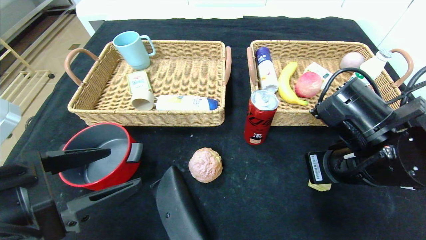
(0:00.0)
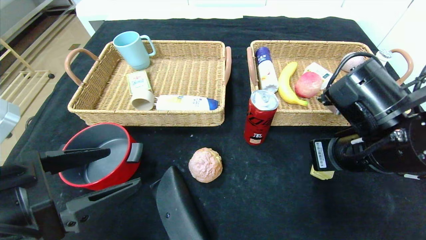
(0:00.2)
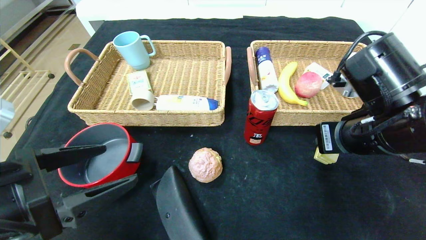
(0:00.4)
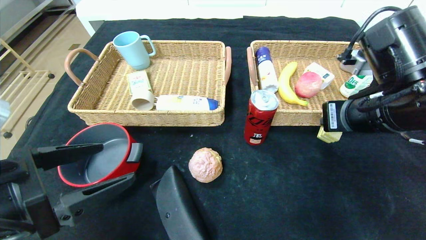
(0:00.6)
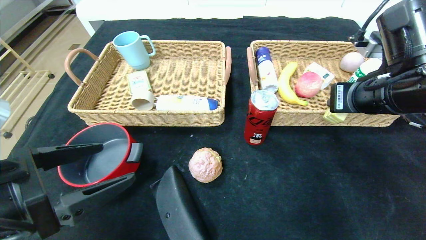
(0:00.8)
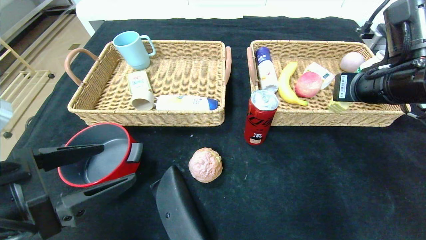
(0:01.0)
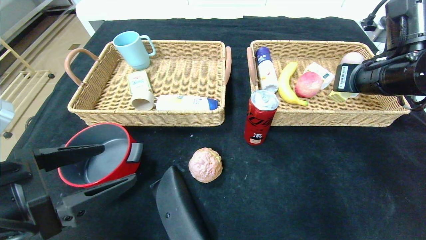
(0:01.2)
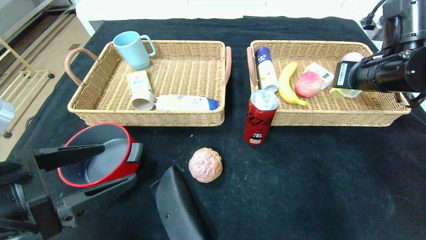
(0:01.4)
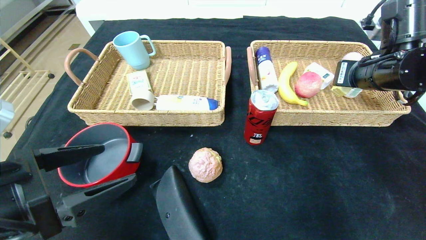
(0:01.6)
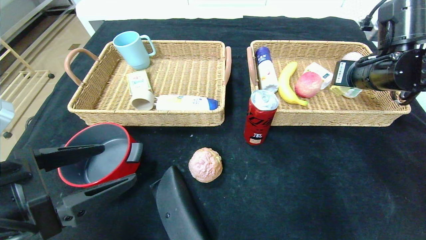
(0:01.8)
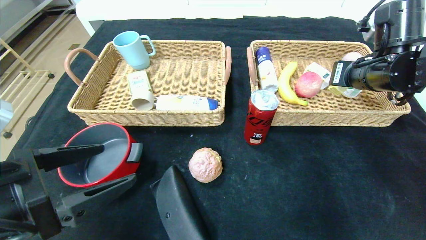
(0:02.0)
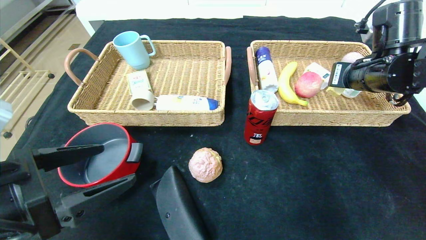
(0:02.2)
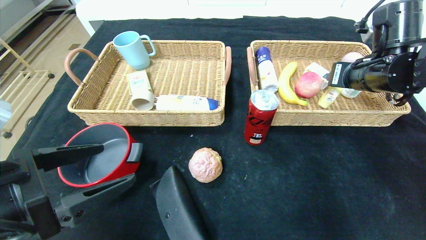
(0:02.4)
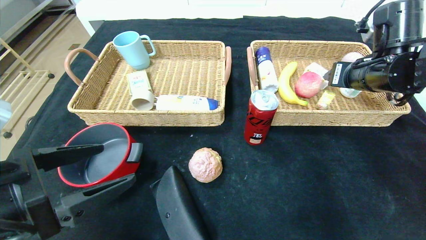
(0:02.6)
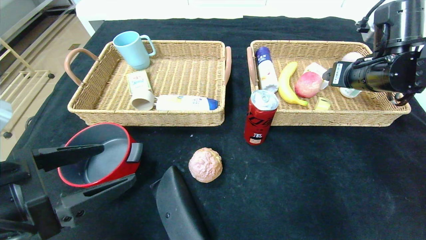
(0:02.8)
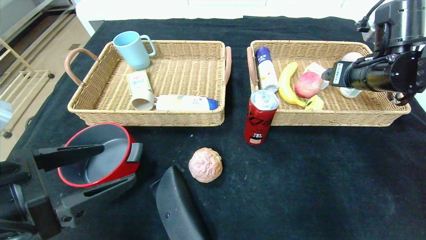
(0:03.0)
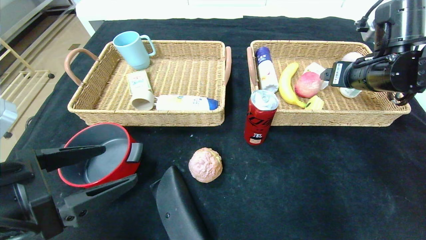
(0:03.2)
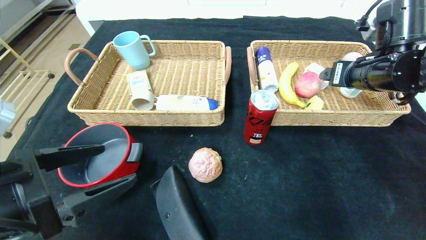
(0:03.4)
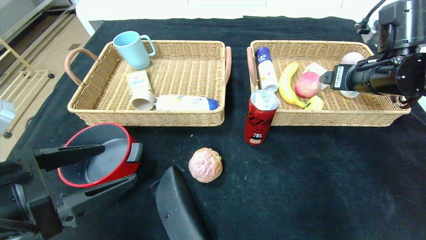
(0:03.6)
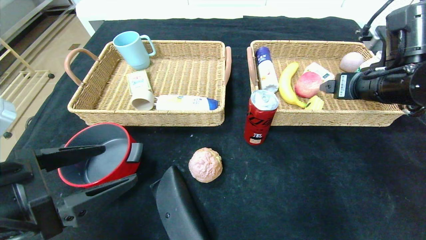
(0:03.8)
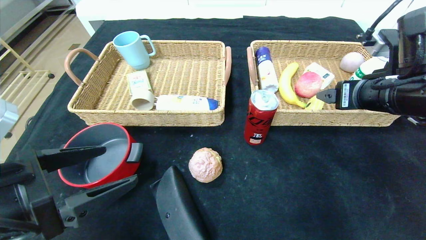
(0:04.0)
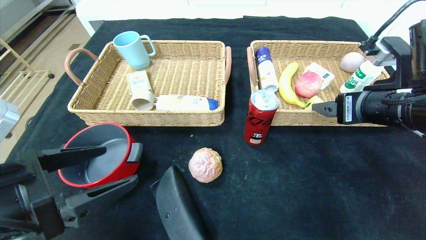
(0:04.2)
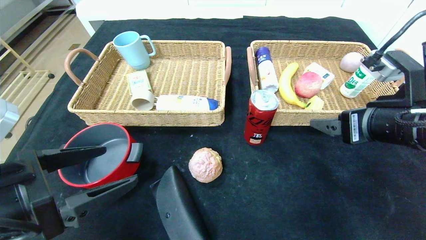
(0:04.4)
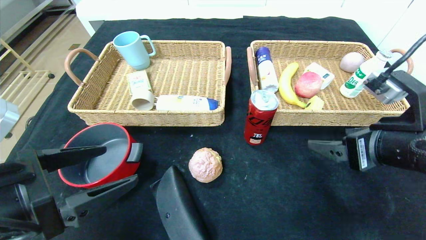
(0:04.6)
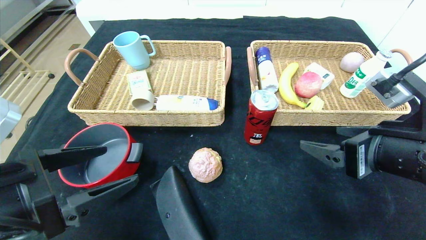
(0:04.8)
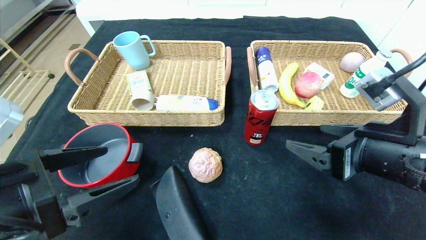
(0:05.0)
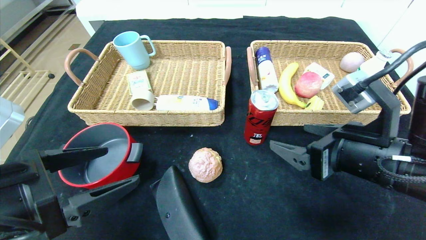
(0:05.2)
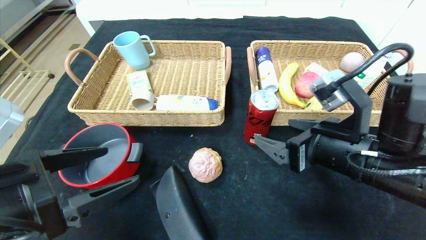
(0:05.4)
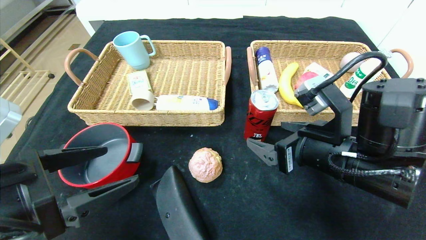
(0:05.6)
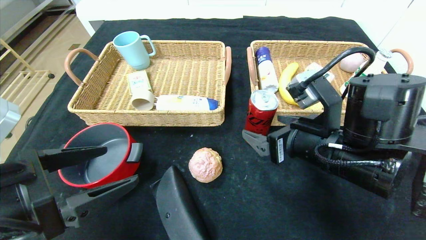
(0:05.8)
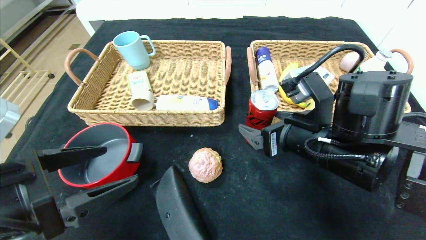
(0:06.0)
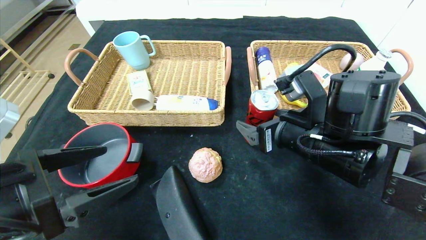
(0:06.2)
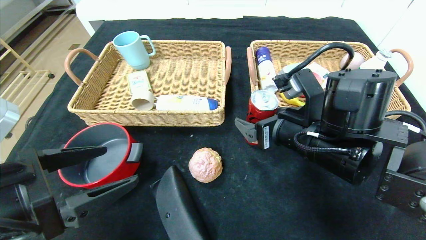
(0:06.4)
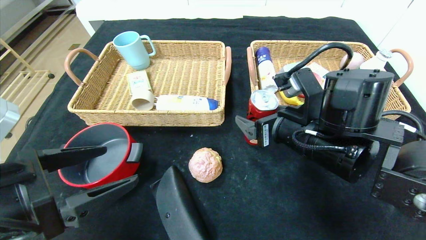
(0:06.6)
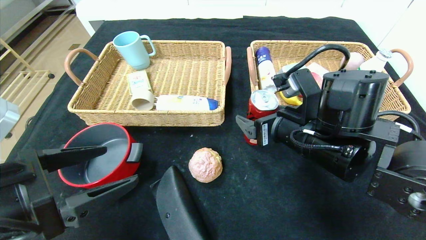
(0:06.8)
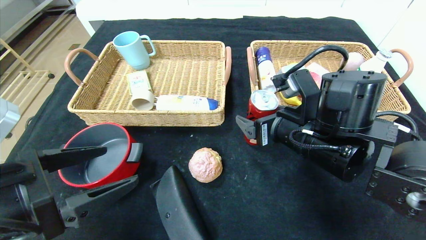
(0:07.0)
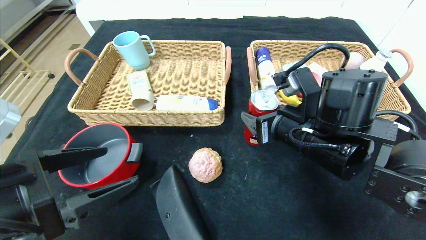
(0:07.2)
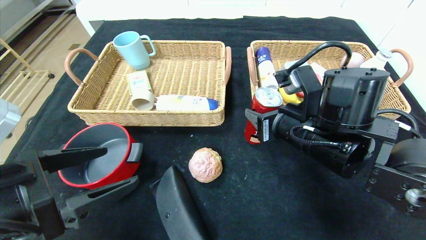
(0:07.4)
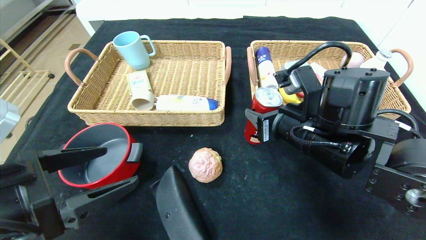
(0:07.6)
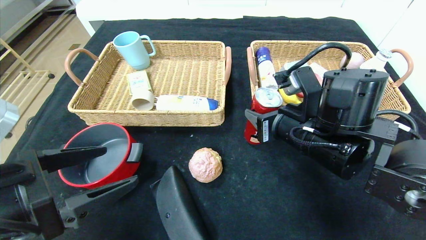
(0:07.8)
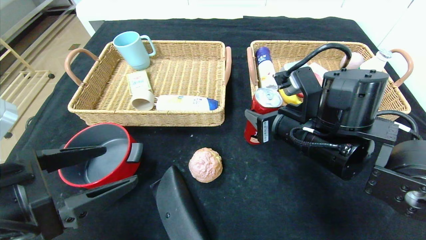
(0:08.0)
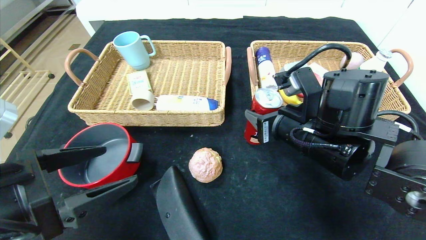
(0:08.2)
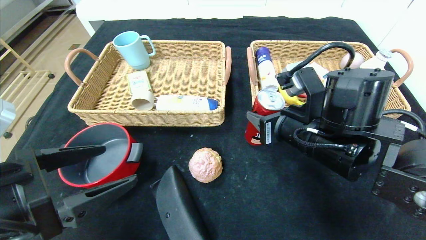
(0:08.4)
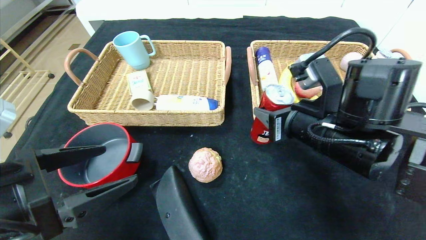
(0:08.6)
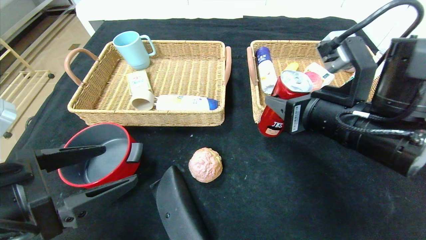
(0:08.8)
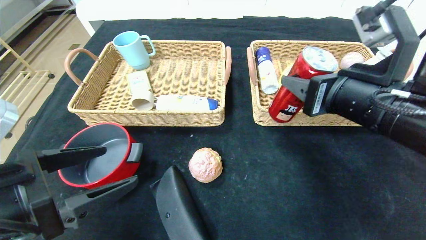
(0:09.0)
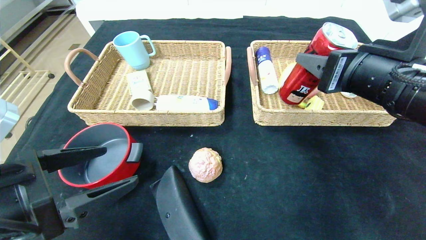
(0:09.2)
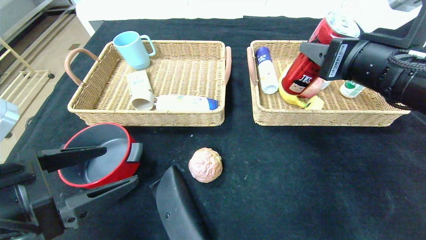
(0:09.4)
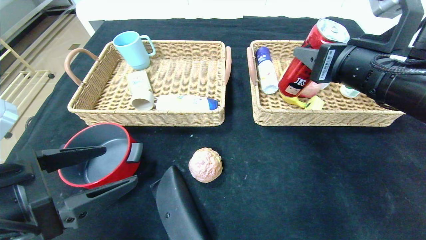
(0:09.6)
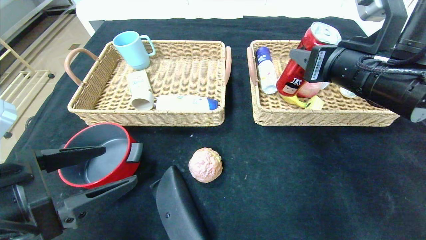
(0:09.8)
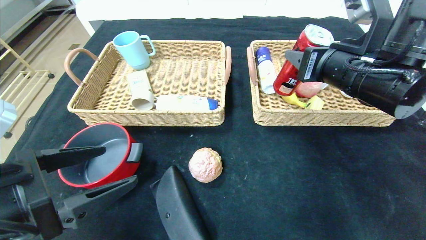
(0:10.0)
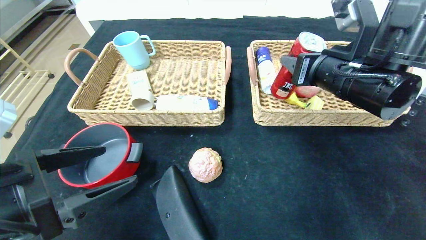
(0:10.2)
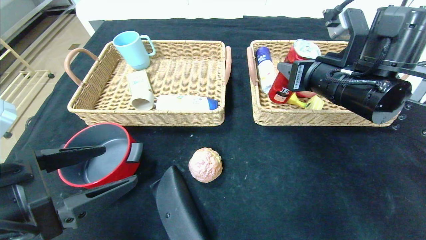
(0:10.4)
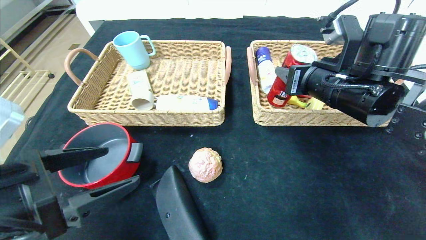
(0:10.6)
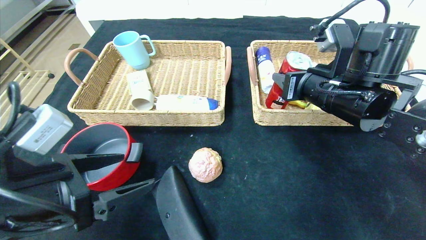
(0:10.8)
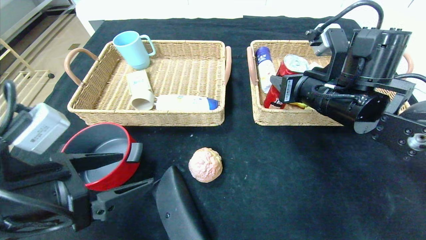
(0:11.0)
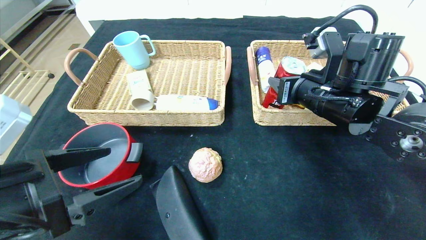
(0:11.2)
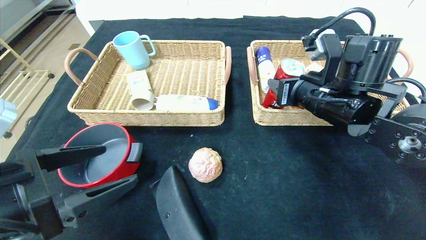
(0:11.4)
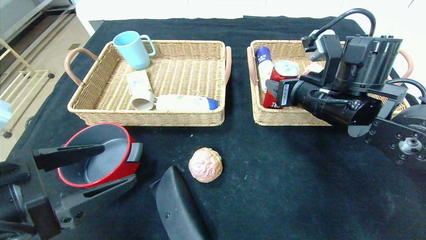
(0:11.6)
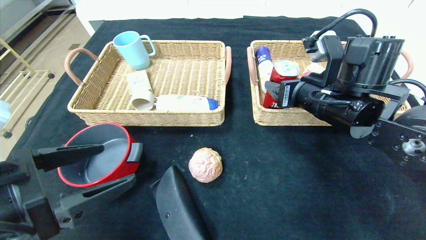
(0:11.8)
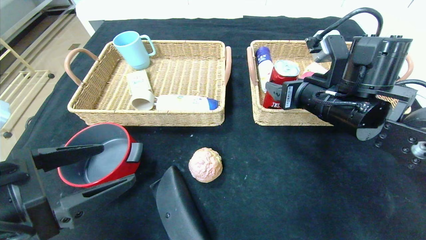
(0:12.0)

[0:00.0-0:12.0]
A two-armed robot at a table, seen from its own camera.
Step, 0:00.0 to 0:03.2: Grasp the yellow cake and put it in the right basket.
0:00.0 to 0:01.6: The right gripper is displaced forward, to the right and upward by about 15 cm.
0:01.6 to 0:03.0: The right gripper opens.
0:03.0 to 0:04.4: The right gripper moves backward, roughly 10 cm.
0:04.4 to 0:06.0: The right gripper goes roughly 10 cm to the left.
0:06.0 to 0:07.6: The right gripper closes.
0:07.6 to 0:09.0: The right gripper shifts some 10 cm upward and to the right.
0:09.0 to 0:10.4: The right gripper goes about 10 cm forward.
0:10.4 to 0:12.0: The right gripper opens up.

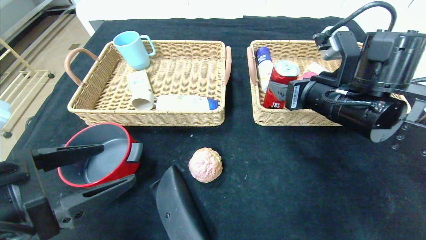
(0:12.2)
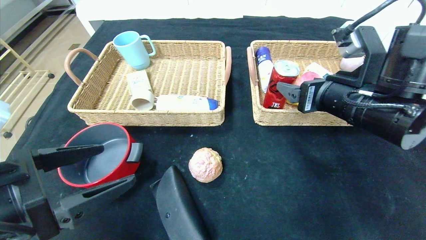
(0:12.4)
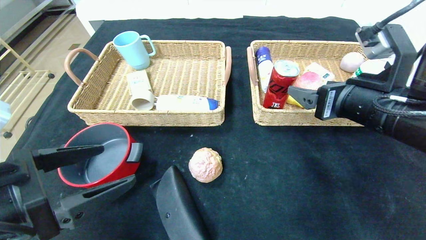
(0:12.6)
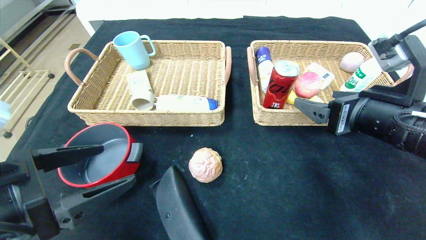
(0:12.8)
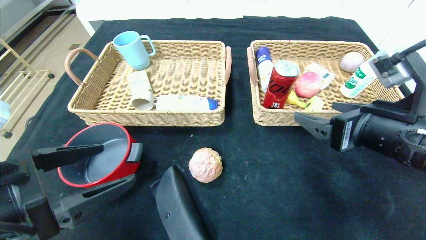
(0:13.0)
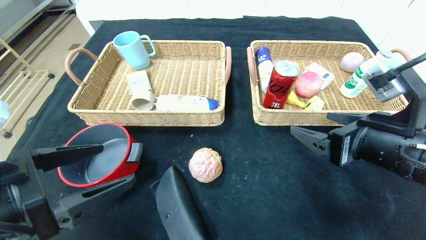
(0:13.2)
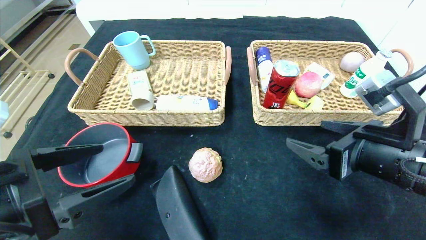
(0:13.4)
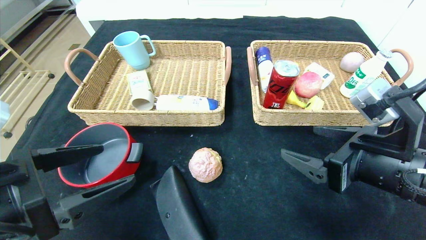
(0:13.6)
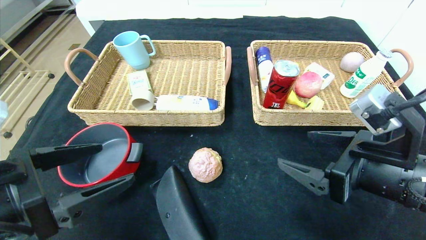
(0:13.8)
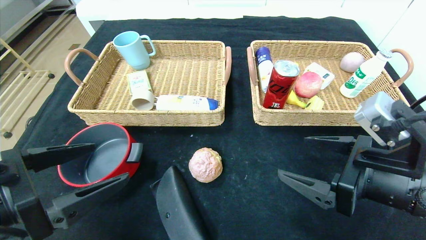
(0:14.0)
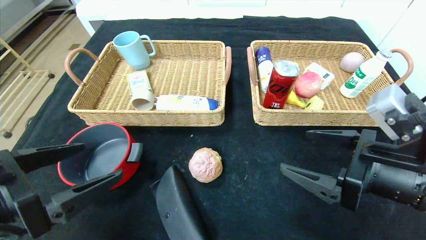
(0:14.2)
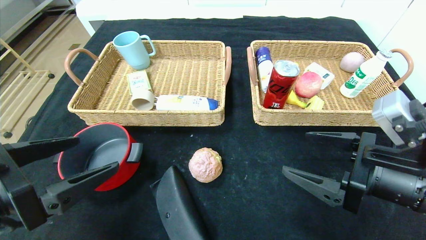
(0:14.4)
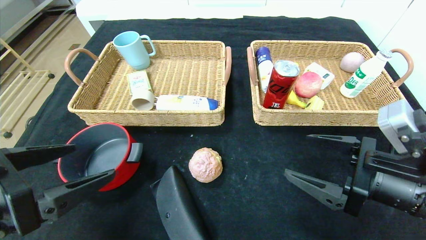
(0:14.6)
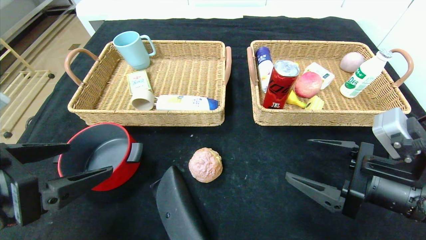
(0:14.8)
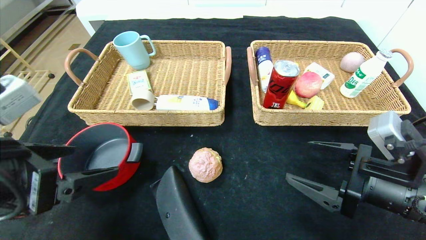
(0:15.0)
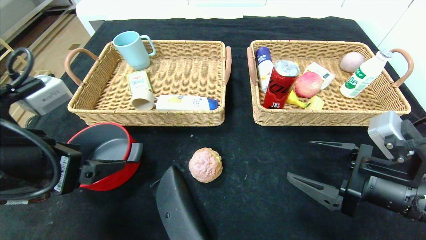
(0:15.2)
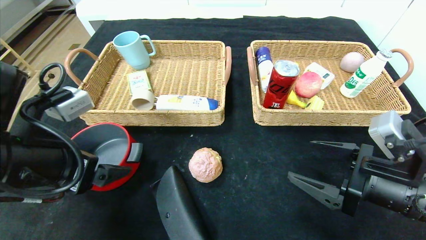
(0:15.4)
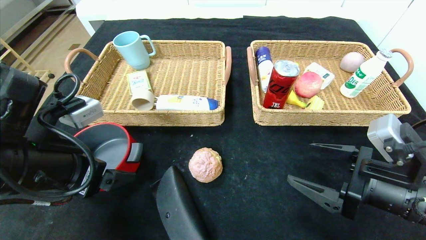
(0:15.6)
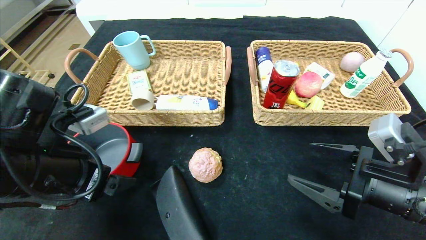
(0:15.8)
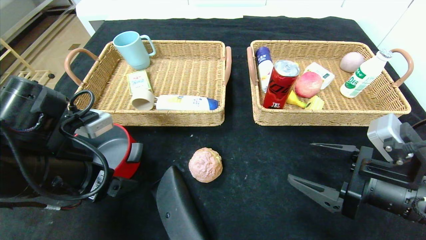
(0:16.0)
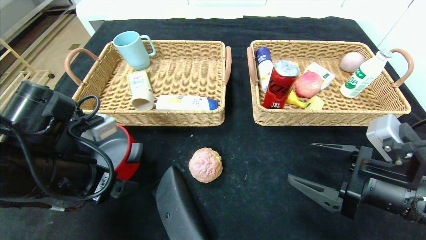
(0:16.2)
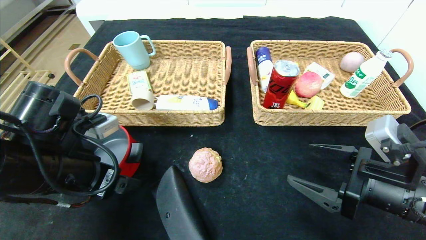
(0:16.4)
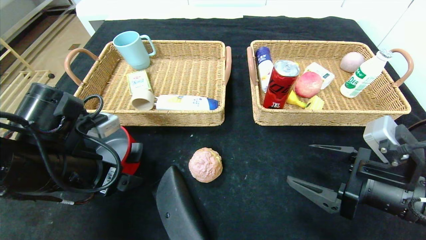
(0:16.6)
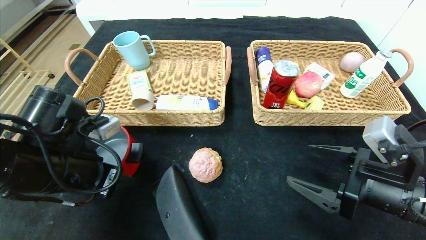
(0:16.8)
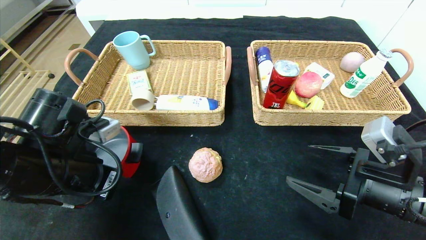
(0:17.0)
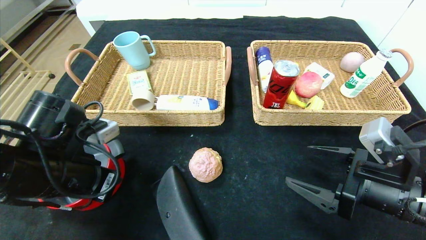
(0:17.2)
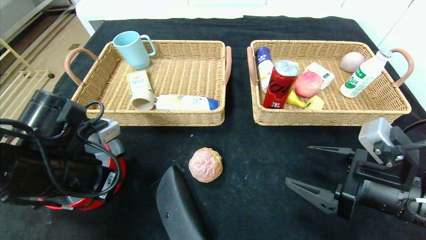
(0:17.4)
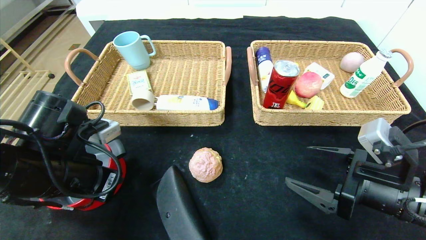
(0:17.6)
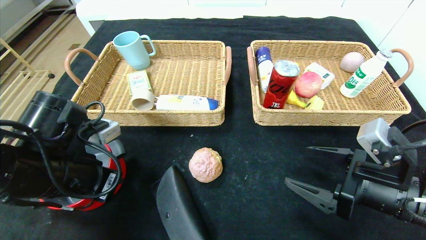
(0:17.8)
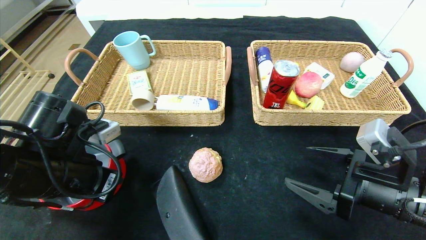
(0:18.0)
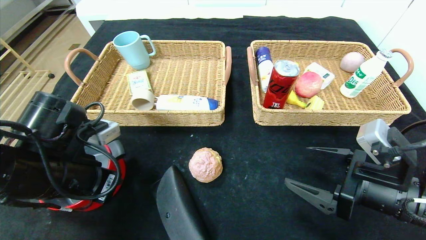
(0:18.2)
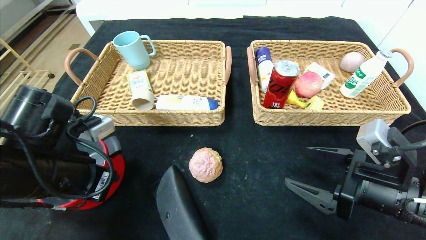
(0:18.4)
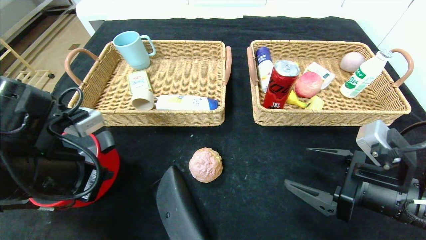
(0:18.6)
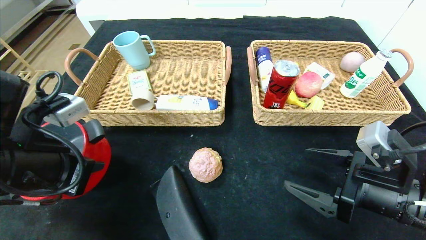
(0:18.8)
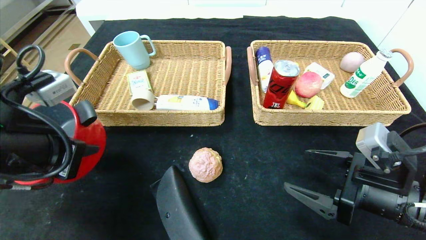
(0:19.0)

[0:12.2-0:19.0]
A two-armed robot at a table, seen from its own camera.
0:12.2 to 0:13.6: The right gripper heads backward, covering roughly 10 cm.
0:15.0 to 0:16.2: The left gripper moves forward, about 5 cm.
0:16.2 to 0:17.6: The left gripper closes.
0:17.6 to 0:19.0: The left gripper moves upward, approximately 5 cm.
